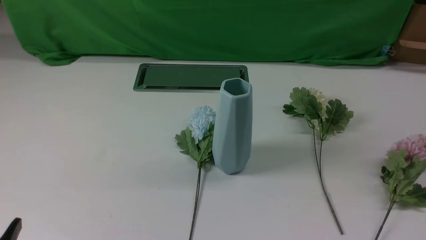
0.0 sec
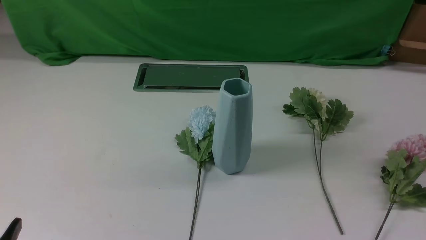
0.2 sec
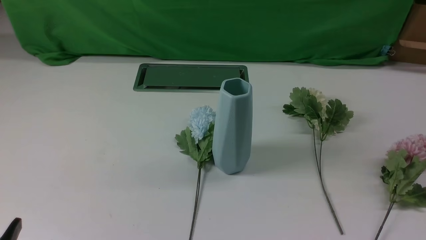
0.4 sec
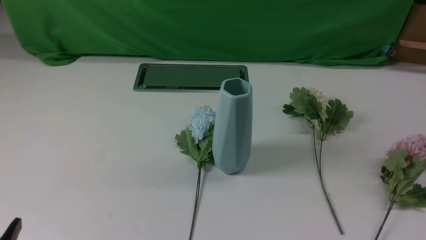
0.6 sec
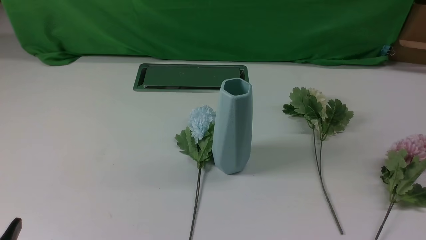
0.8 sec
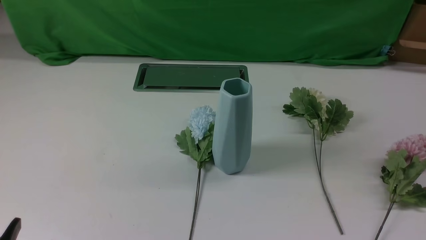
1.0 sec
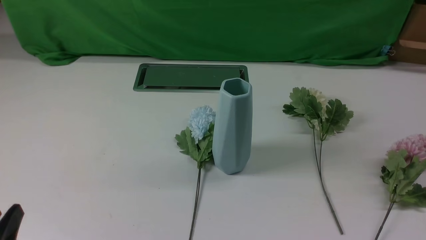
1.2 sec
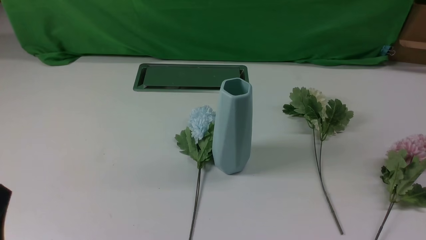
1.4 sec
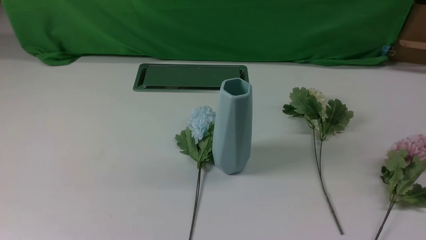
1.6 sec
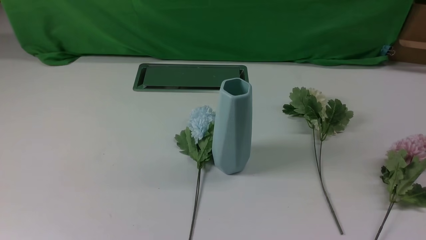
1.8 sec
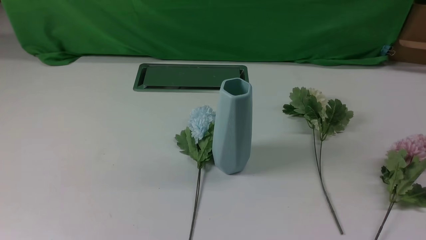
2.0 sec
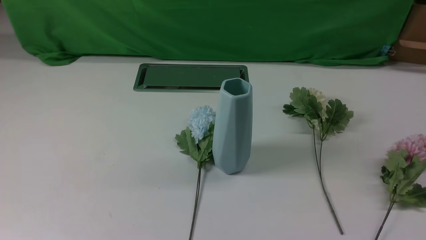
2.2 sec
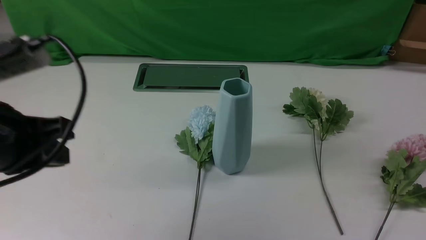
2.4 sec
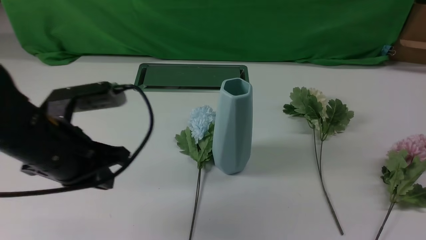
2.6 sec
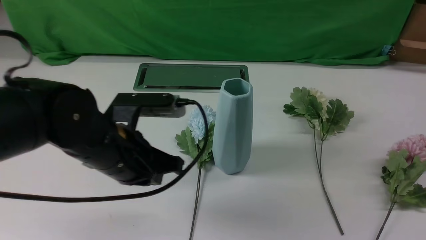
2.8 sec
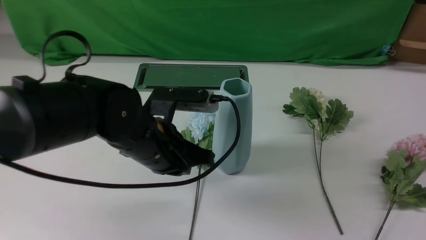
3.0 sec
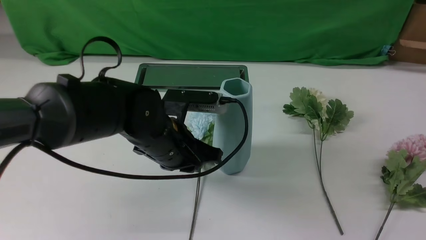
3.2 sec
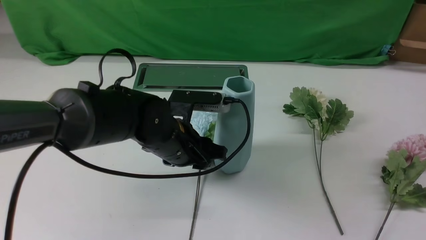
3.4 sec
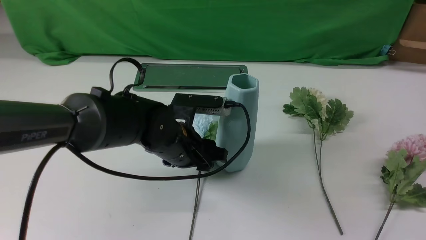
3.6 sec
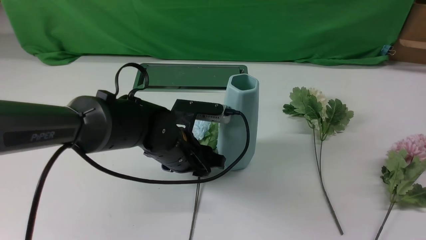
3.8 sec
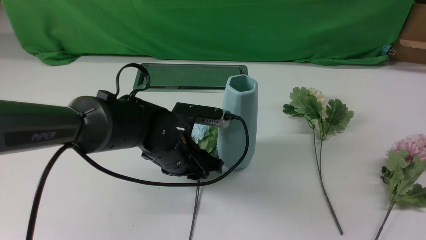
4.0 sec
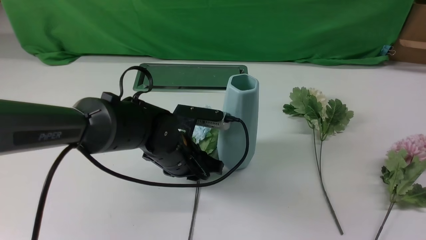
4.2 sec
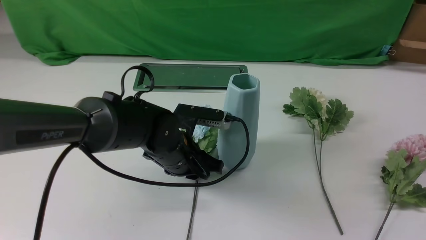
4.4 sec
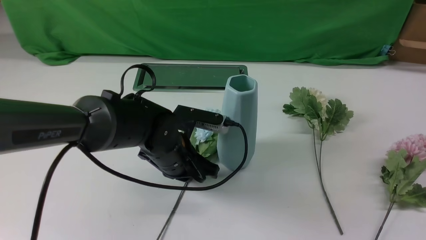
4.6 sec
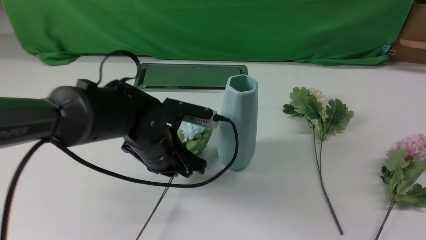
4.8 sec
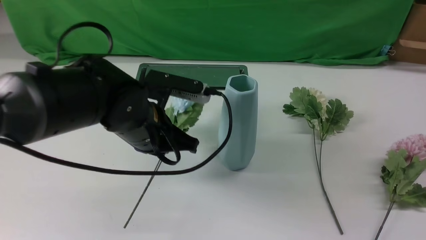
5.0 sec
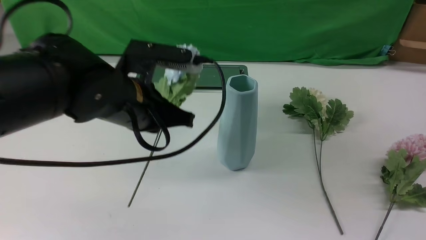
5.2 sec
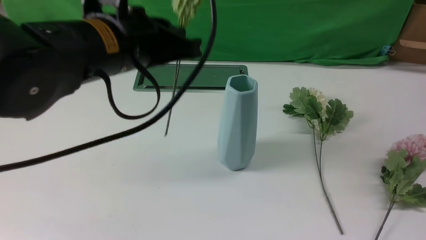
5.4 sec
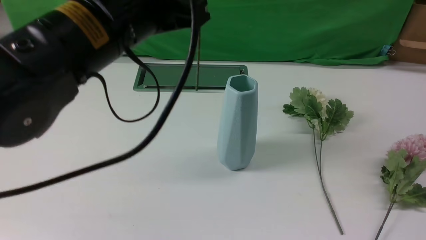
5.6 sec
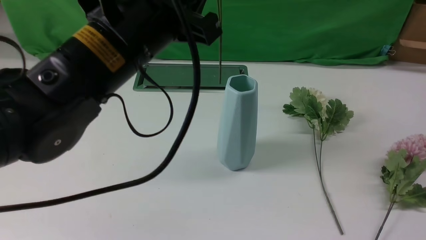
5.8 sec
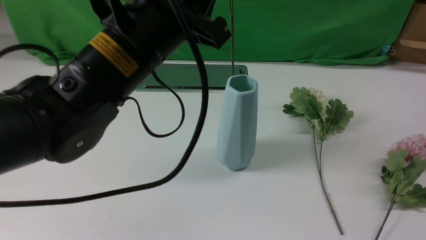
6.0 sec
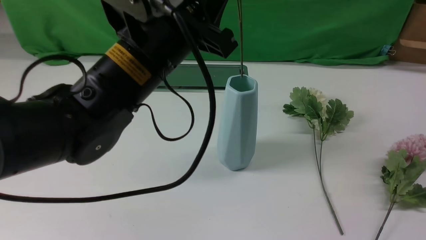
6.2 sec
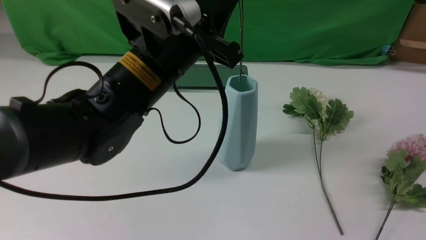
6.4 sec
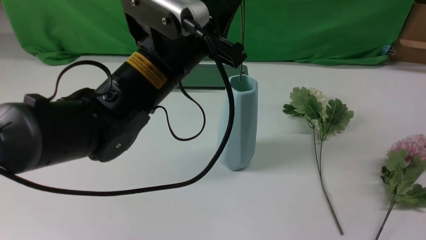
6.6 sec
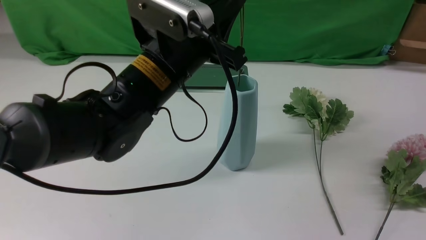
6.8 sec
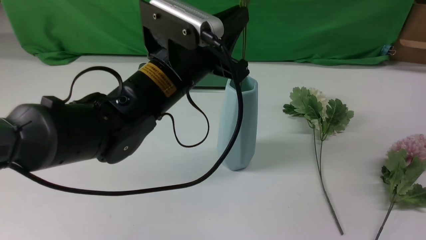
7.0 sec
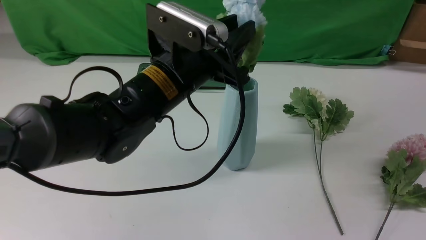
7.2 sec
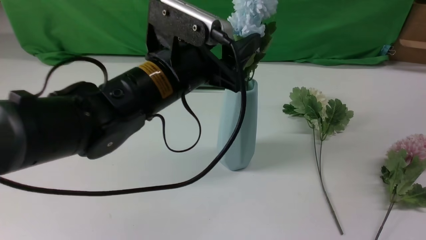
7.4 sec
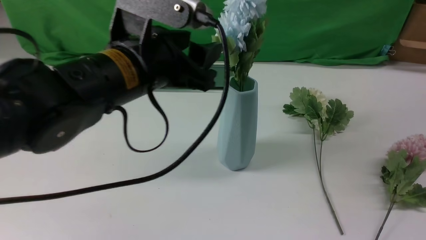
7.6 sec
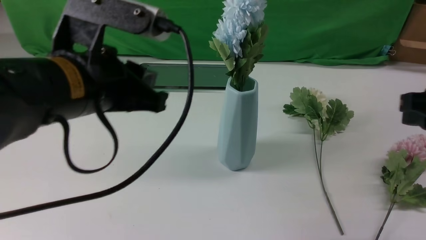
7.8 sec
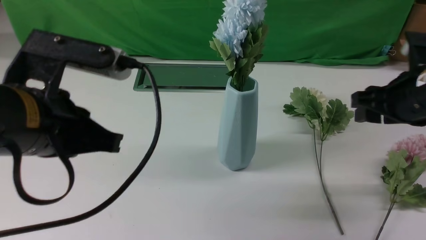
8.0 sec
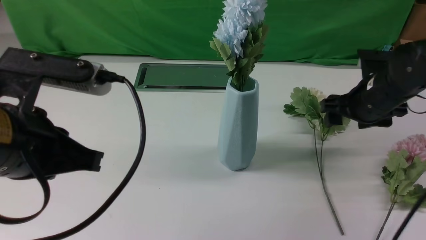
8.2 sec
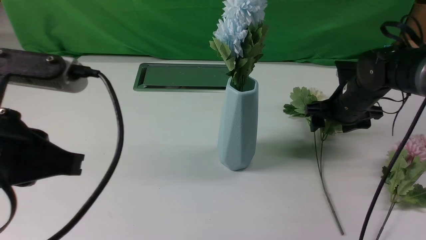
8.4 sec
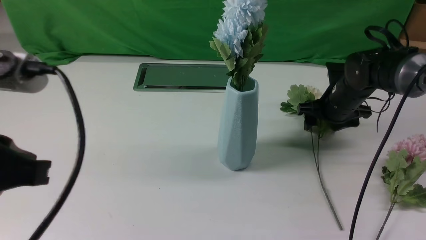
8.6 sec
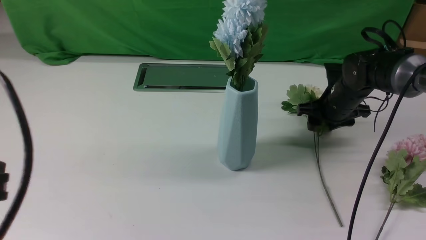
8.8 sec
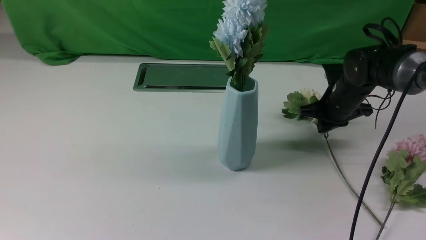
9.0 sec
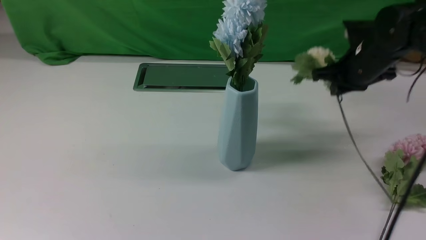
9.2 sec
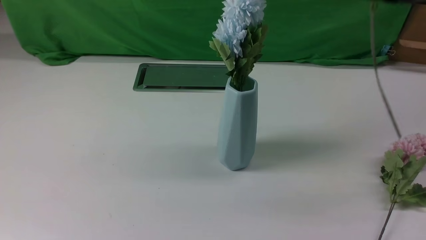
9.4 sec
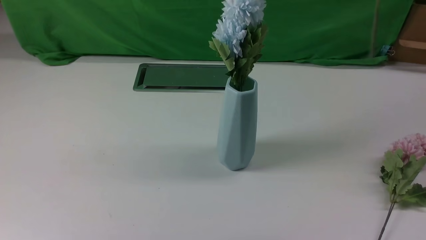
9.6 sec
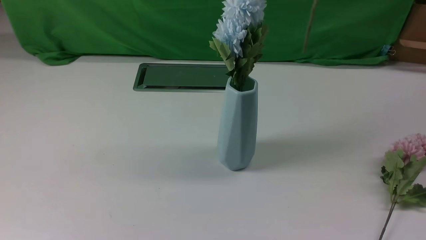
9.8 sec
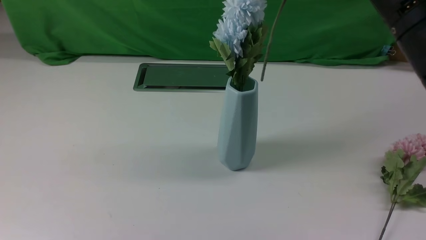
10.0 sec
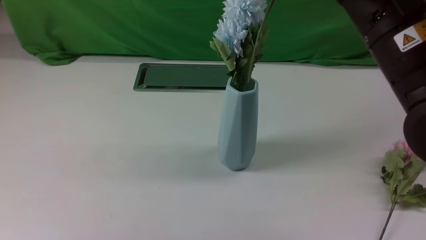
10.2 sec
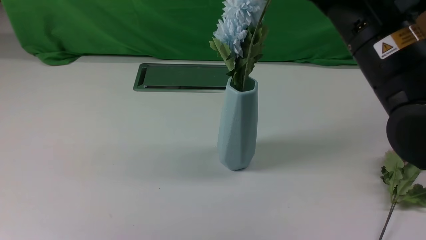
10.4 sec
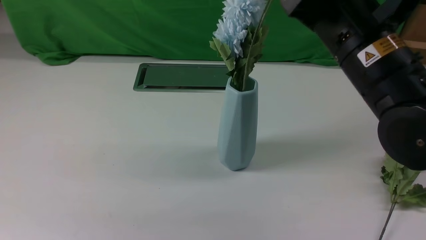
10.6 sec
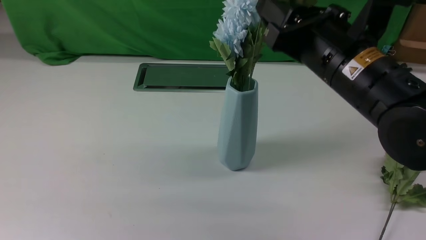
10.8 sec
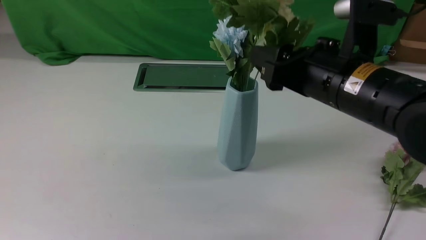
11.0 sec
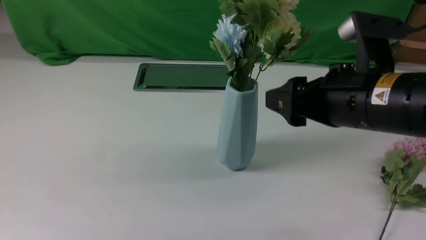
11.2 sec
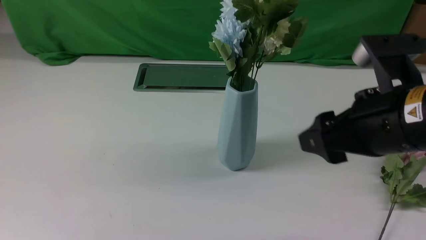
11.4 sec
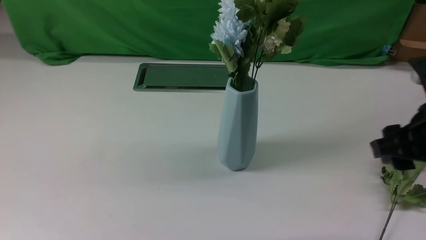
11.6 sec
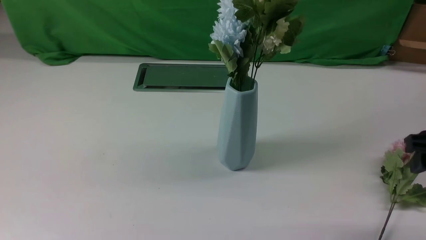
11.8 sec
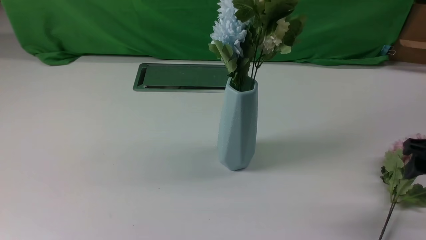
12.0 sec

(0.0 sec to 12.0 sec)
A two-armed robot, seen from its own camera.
Task of the whole recording: insert the flowers into the vase on the white table.
Step, 0.0 sec - 4.6 sec: use the left arm to grab a bunch of fresh flowers.
Step, 4.8 sec - 7.4 sec: use the left arm to insert the flowers into the vase.
Step, 7.6 sec - 8.8 sec: use the right arm to grab a bunch of fresh flowers.
Step, 9.0 sec - 11.0 sec: use the right arm to insert the flowers into the vase.
1.6 sec - 3.0 sec: The left gripper goes roughly 30 cm forward and to the right, and closes its fingers. The right gripper travels upward by some 10 cm.
3.0 sec - 4.4 sec: The left gripper shifts some 5 cm downward, and opens, then closes once more. The right gripper moves upward, roughly 5 cm.
4.4 sec - 6.0 sec: The left gripper shifts some 20 cm upward, and closes its fingers.
6.0 sec - 7.6 sec: The right gripper is displaced forward by approximately 5 cm. Meanwhile the left gripper opens up.
7.6 sec - 9.0 sec: The left gripper goes roughly 25 cm backward and to the left, and closes its fingers, while the right gripper moves forward and downward, some 30 cm, and opens, then closes again.
9.0 sec - 10.4 sec: The right gripper heads upward, backward and to the left, covering about 25 cm.
10.4 sec - 12.0 sec: The right gripper heads to the right and downward, covering some 25 cm, and opens its fingers.

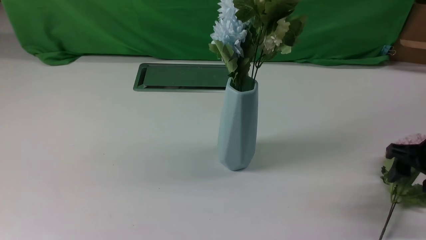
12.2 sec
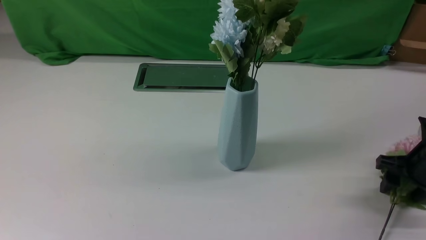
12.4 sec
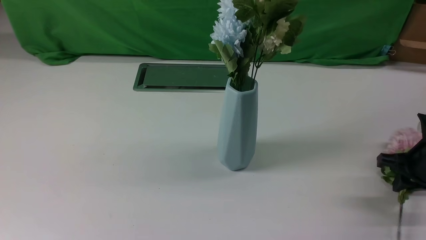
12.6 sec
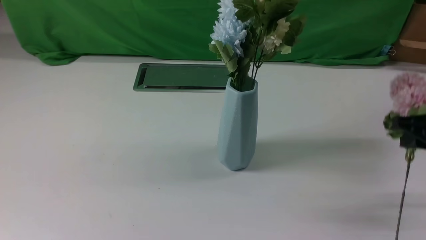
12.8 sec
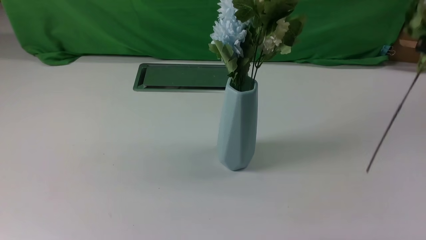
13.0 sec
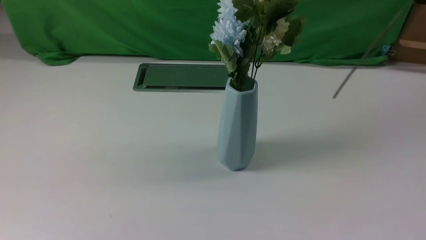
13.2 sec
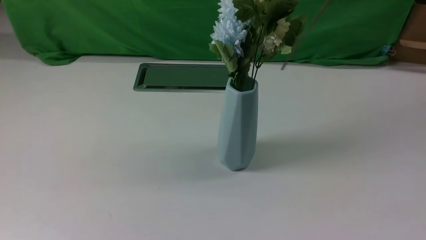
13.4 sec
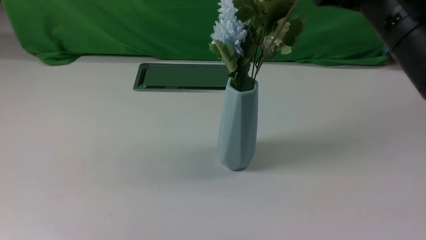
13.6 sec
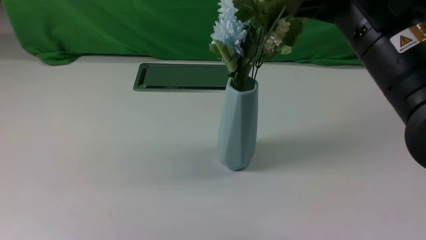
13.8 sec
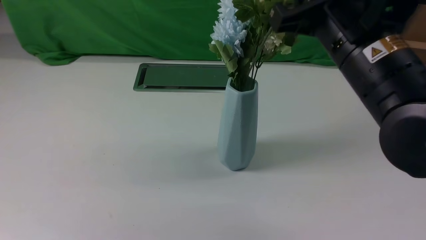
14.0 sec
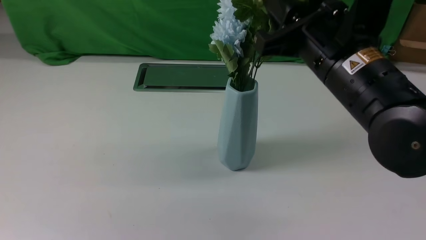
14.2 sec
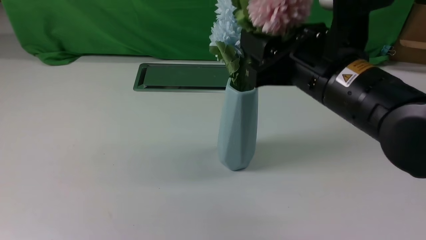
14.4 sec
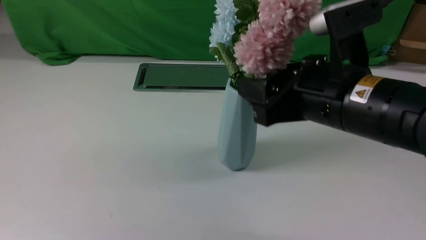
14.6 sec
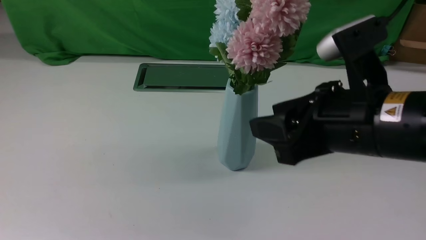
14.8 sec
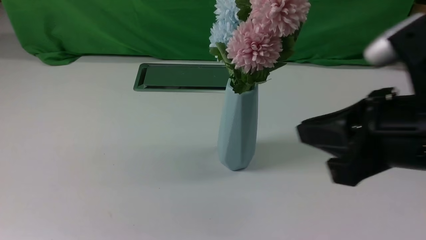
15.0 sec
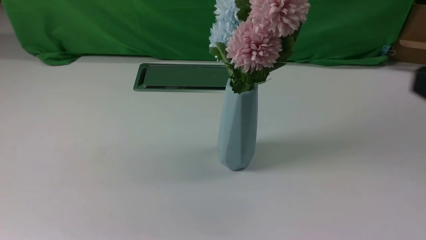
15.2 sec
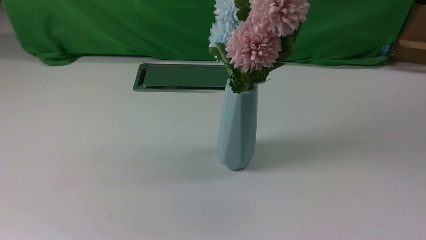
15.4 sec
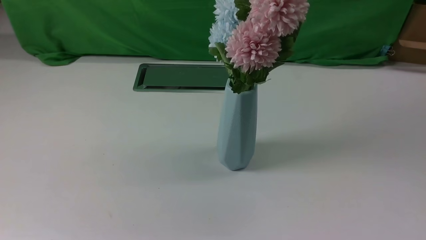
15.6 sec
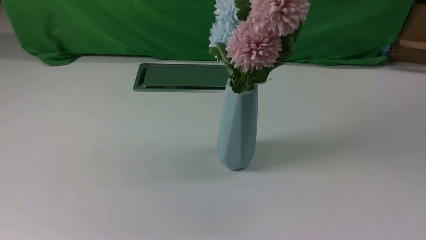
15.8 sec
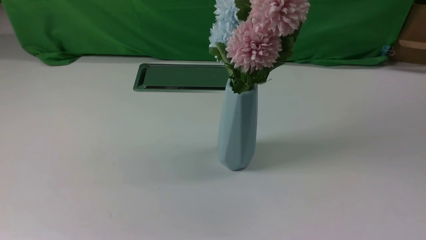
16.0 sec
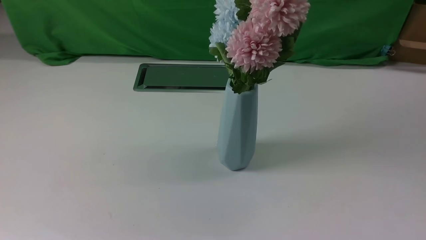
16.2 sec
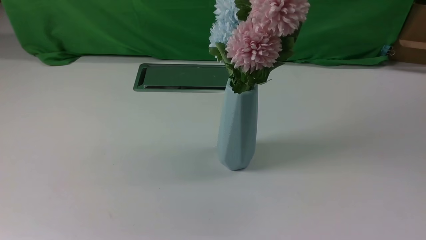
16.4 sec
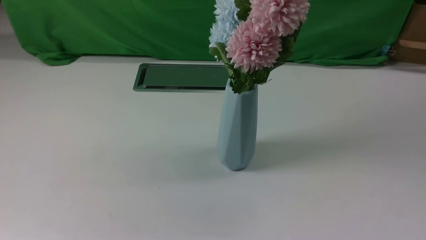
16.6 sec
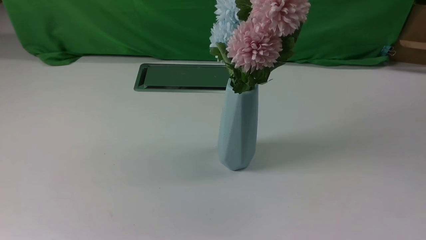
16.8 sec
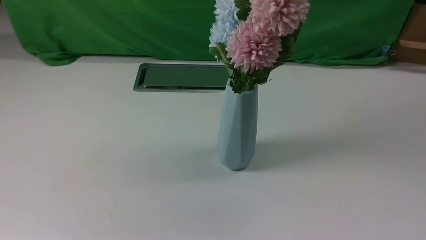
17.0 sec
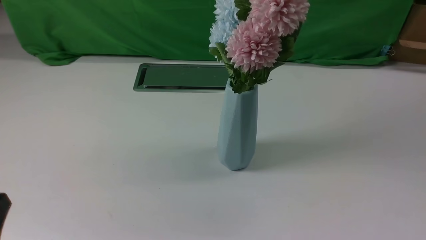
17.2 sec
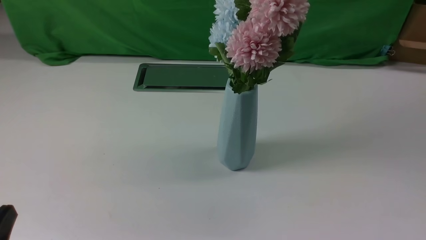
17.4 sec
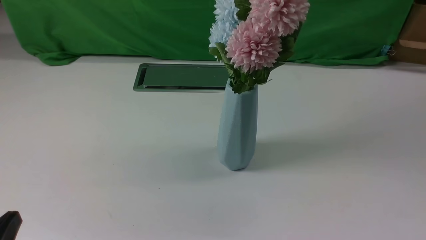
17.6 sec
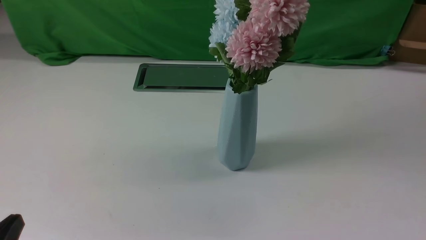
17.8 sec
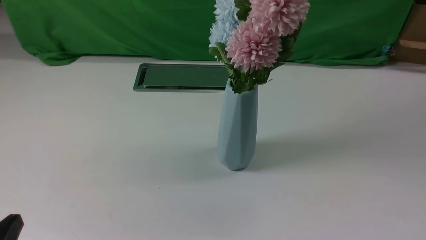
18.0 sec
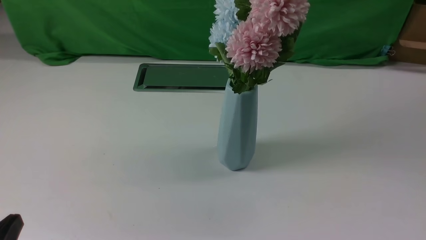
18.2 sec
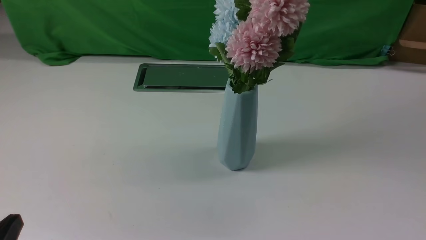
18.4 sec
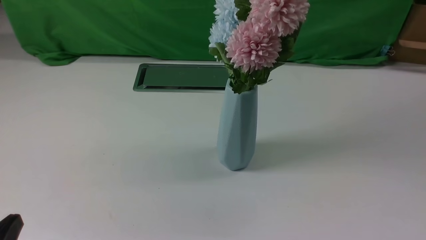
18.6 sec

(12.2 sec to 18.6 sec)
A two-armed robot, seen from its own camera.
Task of the whole recording: insert the flowers into the vase on the white table.
Step, 12.8 sec - 14.6 sec: use the right arm to insert the flowers into the vase.
12.2 sec - 13.8 sec: The right gripper is displaced to the left and upward by approximately 25 cm, and closes its fingers.
13.8 sec - 15.4 sec: The right gripper heads backward and to the right, covering some 25 cm, and opens and closes again.
